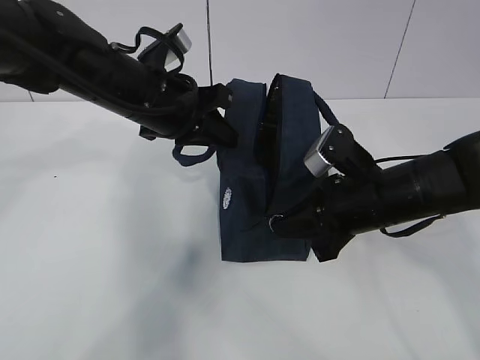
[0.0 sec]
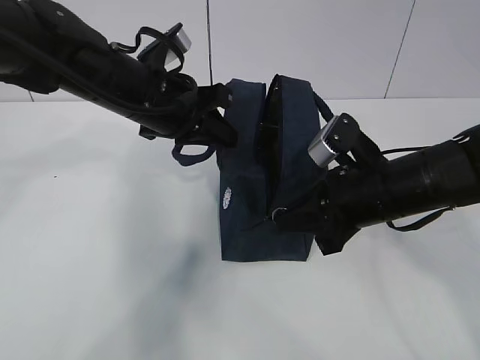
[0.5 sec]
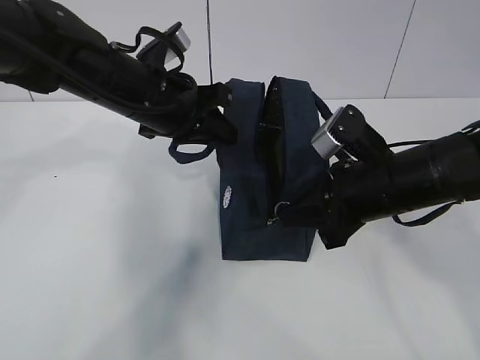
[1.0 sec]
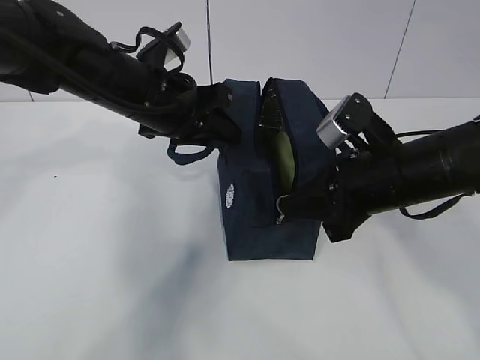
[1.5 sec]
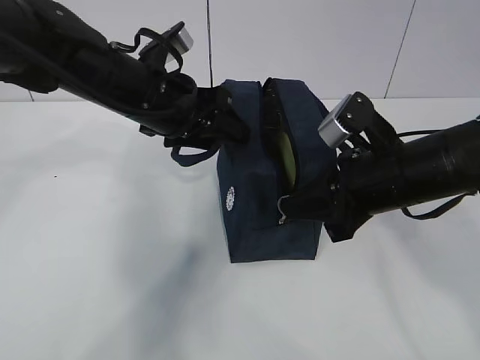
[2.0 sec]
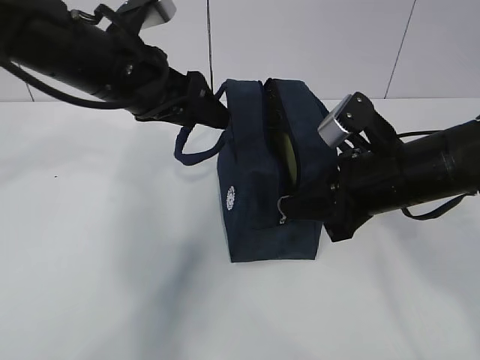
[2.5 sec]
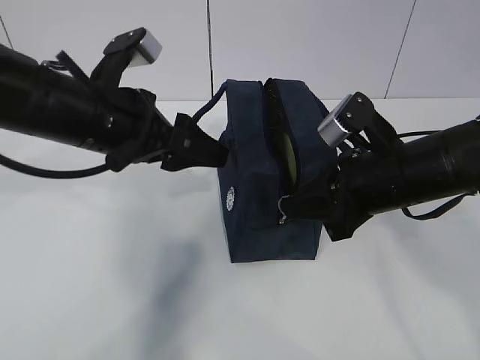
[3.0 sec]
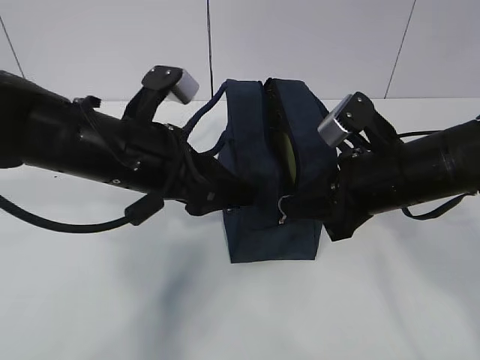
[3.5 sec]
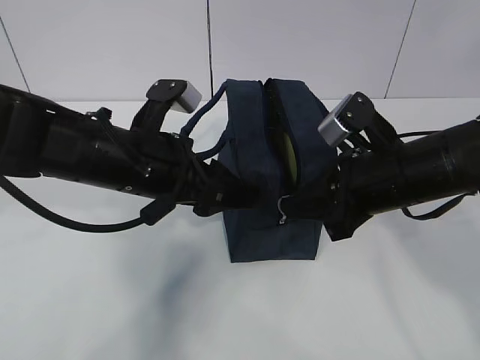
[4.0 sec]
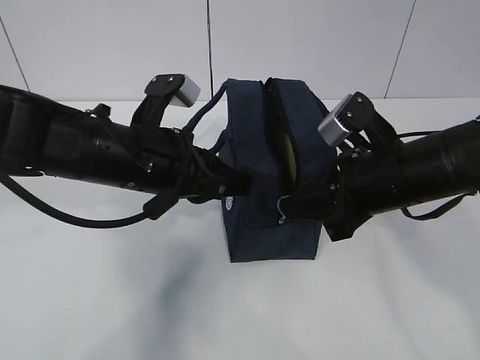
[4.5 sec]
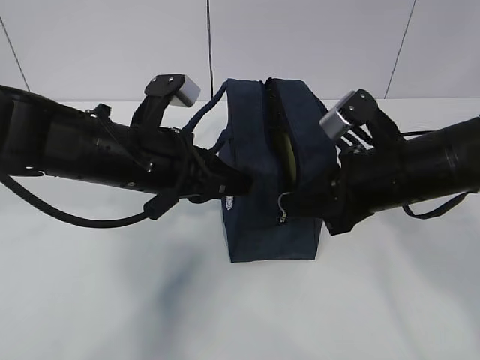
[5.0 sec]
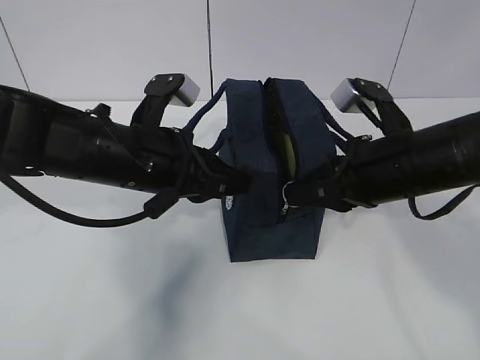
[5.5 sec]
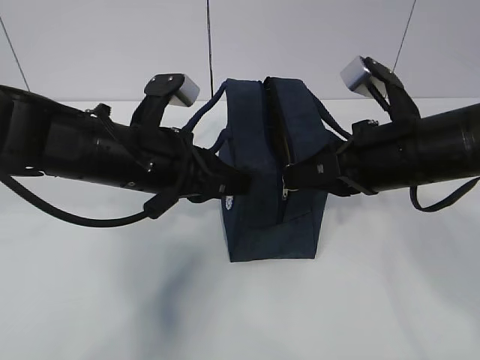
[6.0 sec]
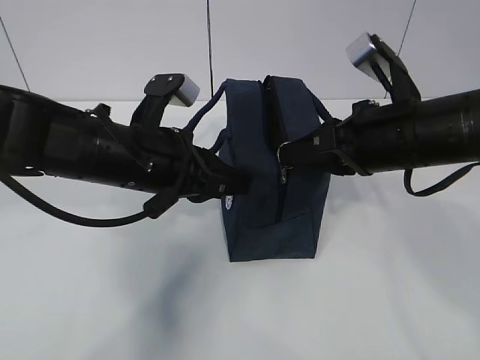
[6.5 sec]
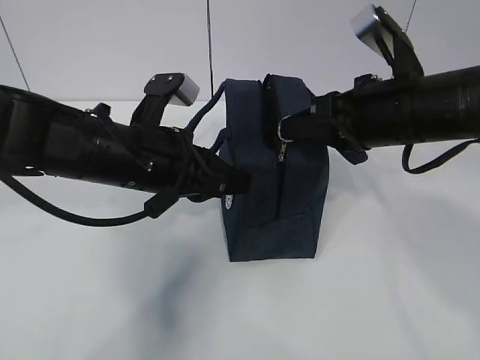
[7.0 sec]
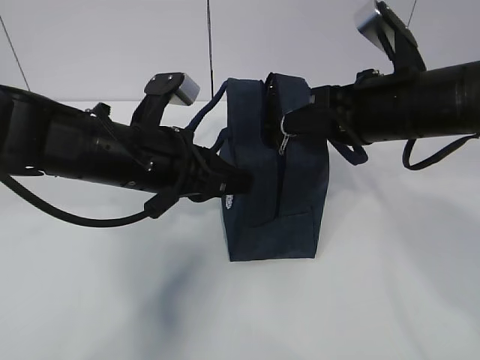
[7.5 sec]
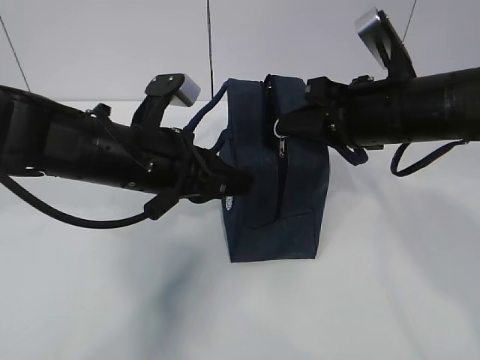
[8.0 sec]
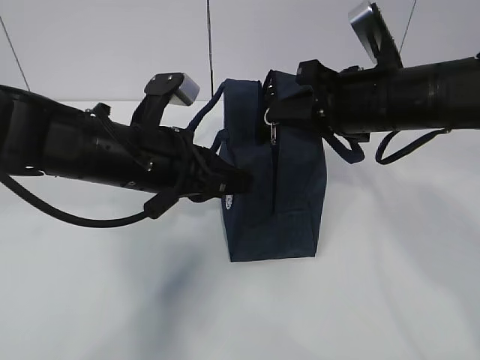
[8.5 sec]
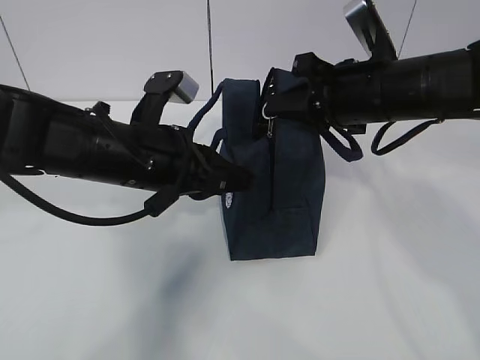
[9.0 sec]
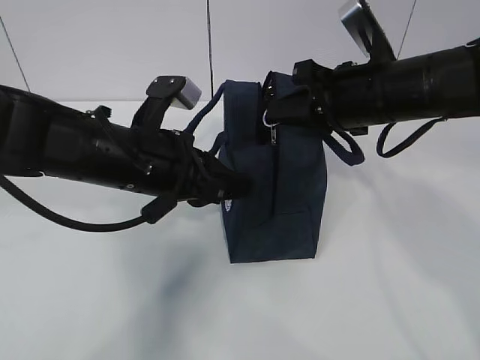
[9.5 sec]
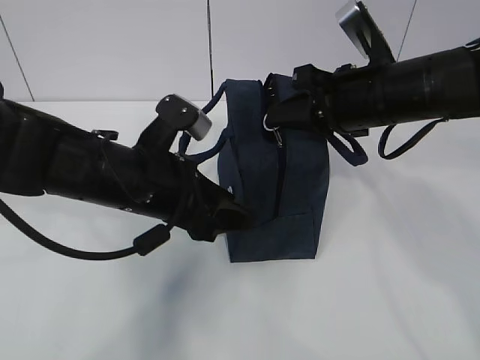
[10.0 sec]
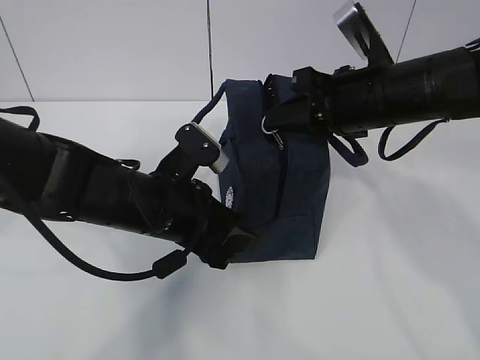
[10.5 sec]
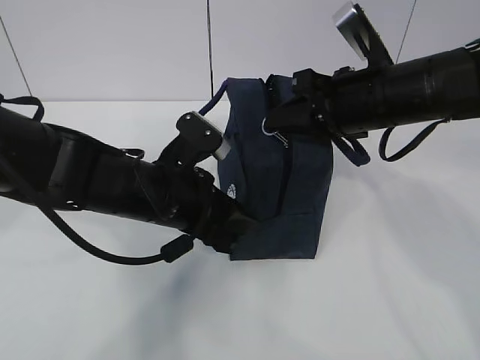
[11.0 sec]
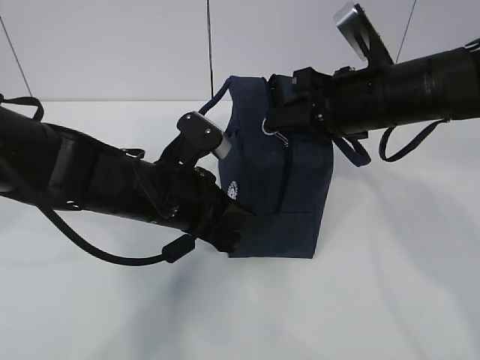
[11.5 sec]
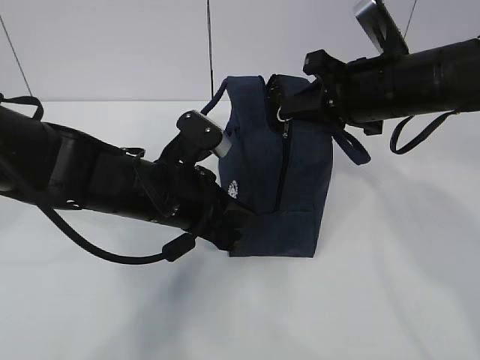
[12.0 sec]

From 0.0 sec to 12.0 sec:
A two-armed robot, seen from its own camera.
Step, from 0.0 sec to 4.5 sec: Pull the zipper with your right hand.
From 0.0 sec to 2.0 sec: The left gripper opens up.
From 2.0 sec to 4.0 sec: The left gripper goes about 5 cm backward.
From 4.0 sec to 6.0 sec: The left gripper closes.
From 8.0 sec to 10.0 sec: The left gripper opens up.
From 10.0 sec to 12.0 sec: The left gripper closes.

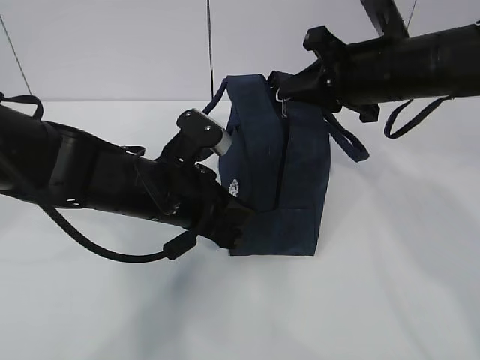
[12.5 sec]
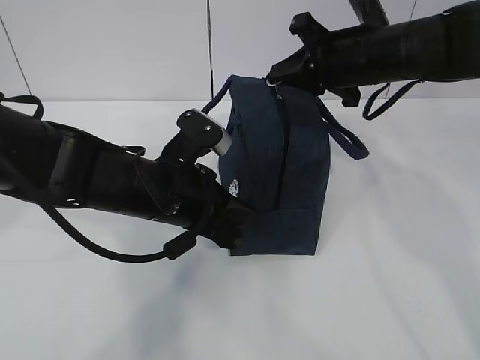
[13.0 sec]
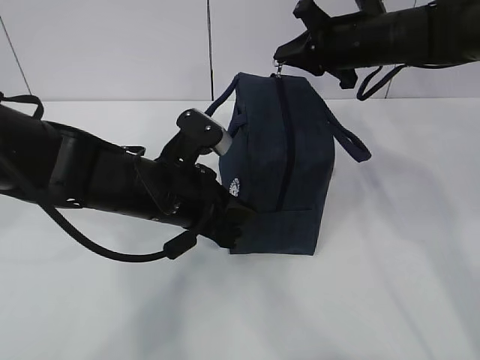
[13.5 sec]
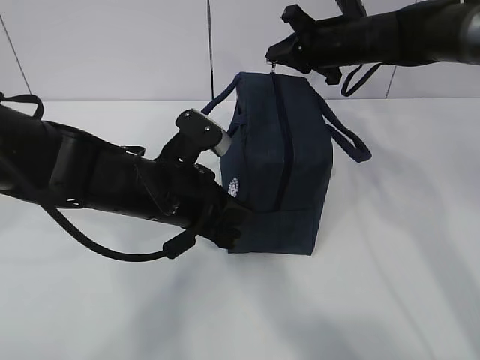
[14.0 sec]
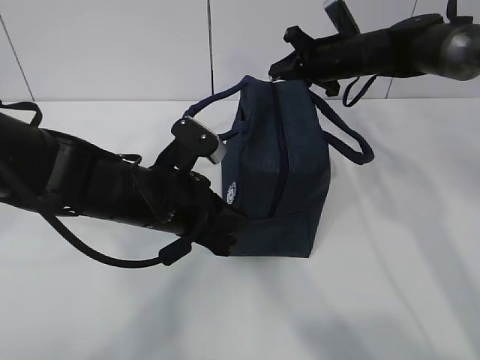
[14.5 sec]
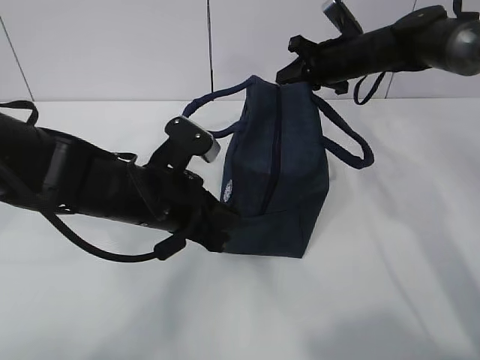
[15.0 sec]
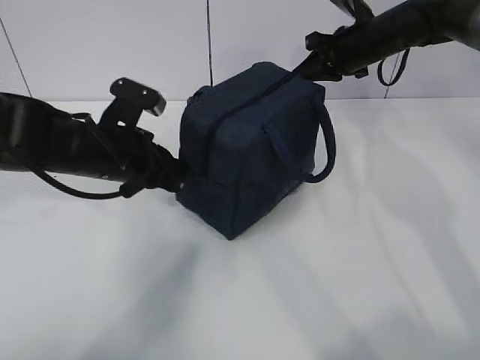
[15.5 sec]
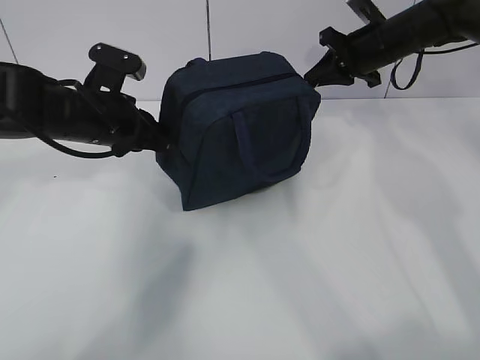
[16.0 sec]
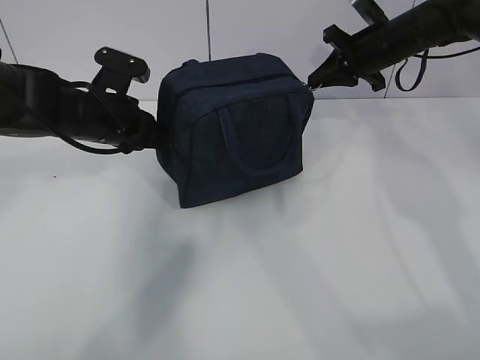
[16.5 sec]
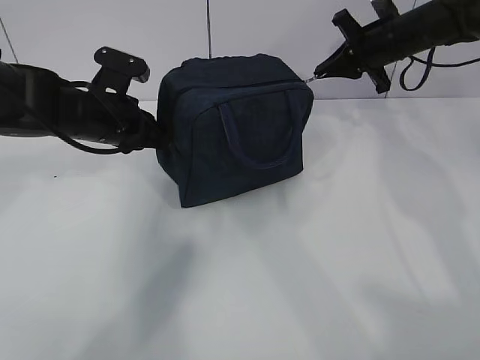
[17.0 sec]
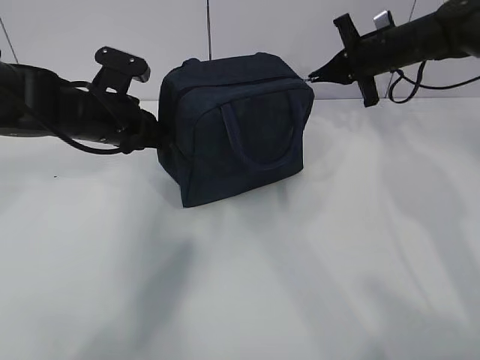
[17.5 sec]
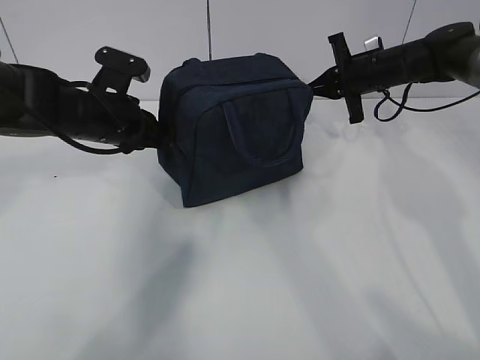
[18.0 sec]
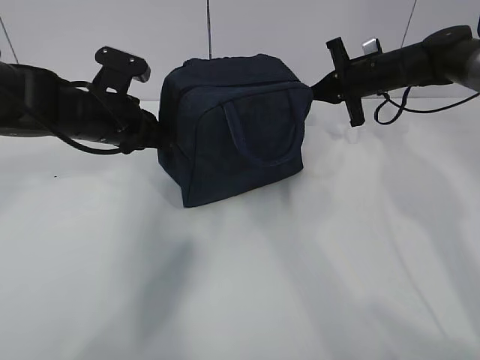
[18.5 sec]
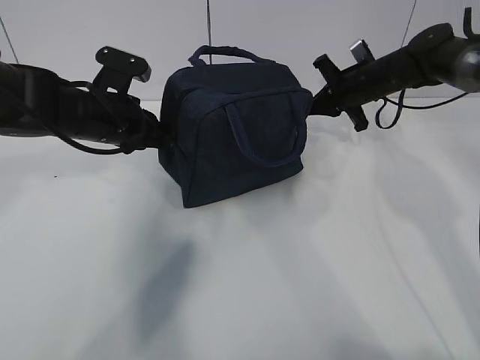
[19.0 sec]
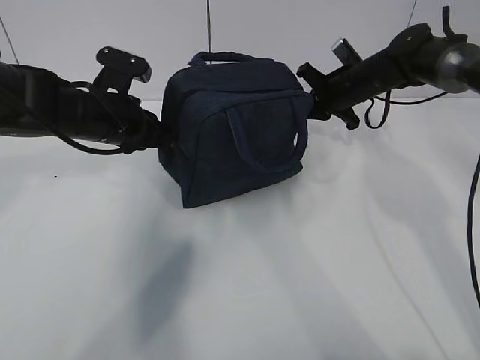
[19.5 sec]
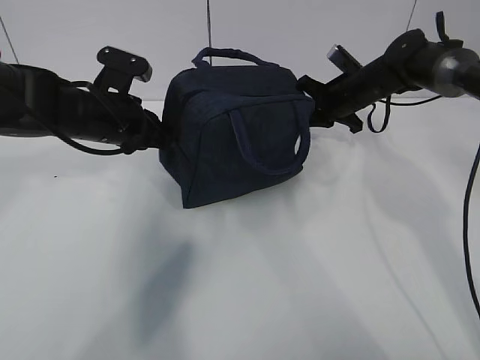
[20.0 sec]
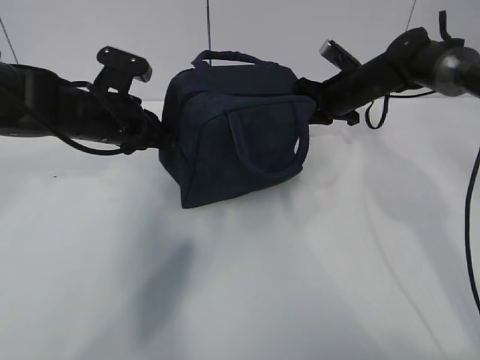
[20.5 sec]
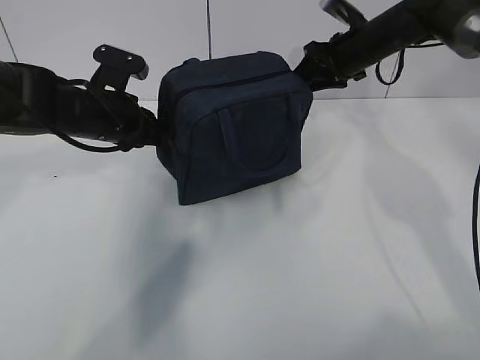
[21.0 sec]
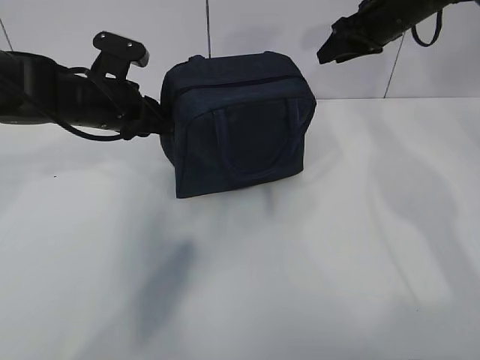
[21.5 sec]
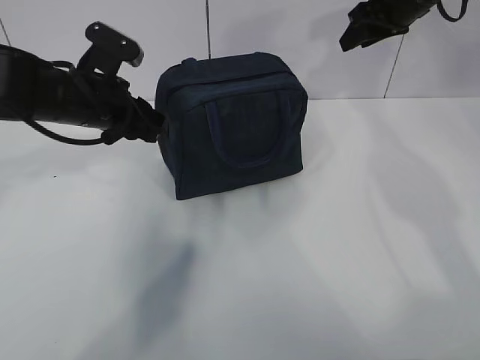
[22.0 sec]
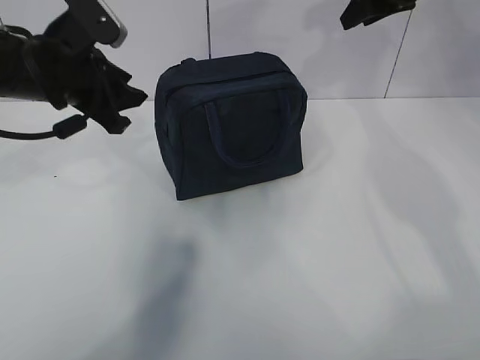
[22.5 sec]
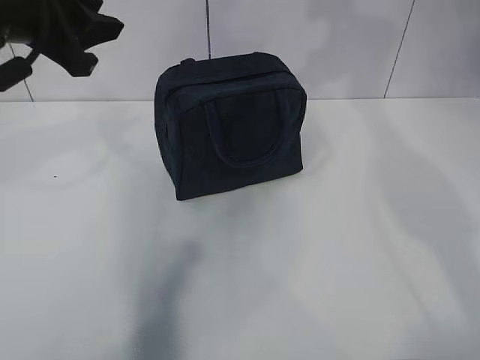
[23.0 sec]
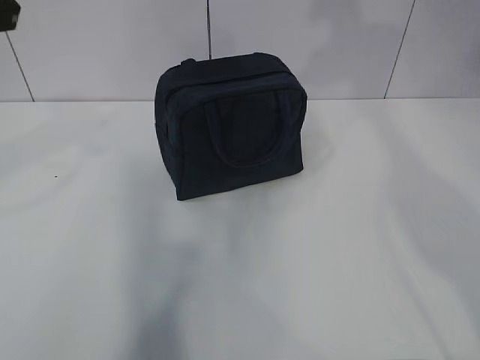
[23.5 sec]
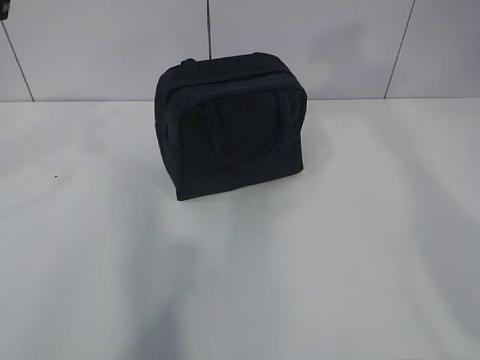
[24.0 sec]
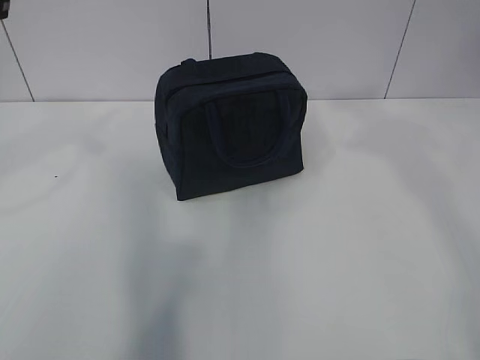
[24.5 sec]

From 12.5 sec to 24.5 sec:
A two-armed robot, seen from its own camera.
From 12.5 sec to 14.5 sec: The right gripper moves forward, approximately 15 cm.
From 14.5 sec to 16.5 sec: The left gripper moves forward and to the left, some 15 cm; the right gripper is displaced to the right by some 5 cm.
From 16.5 sec to 18.5 sec: The right gripper goes about 5 cm downward.
From 20.5 sec to 22.5 sec: The left gripper is displaced upward by about 10 cm, and opens its fingers. The right gripper goes some 20 cm upward, and opens up.
From 22.5 sec to 24.5 sec: The right gripper moves backward, some 30 cm; the left gripper travels upward and backward by about 20 cm.
